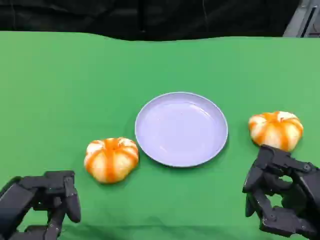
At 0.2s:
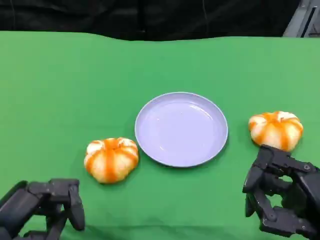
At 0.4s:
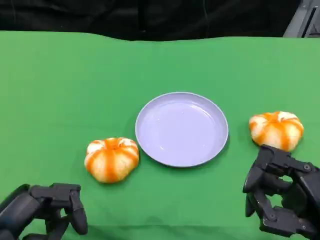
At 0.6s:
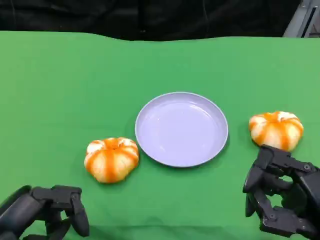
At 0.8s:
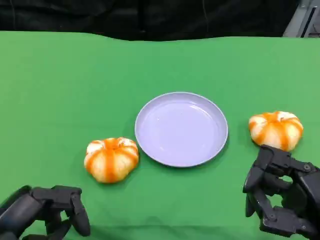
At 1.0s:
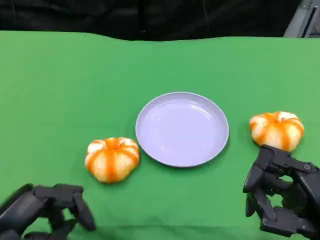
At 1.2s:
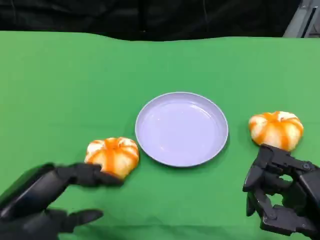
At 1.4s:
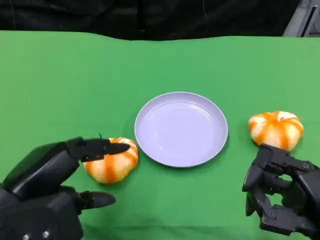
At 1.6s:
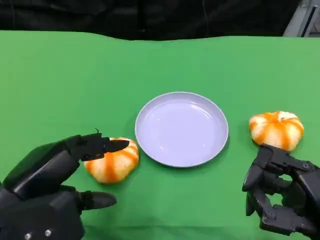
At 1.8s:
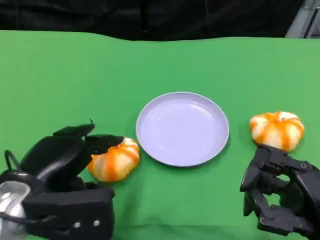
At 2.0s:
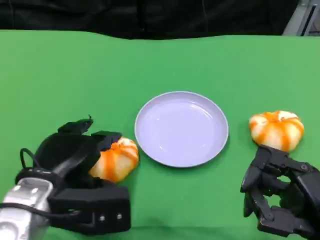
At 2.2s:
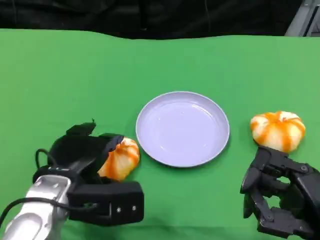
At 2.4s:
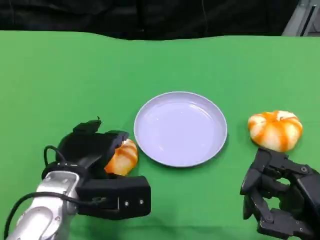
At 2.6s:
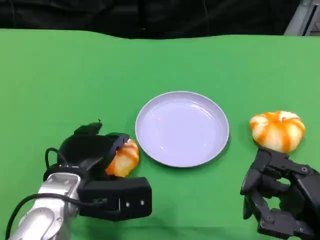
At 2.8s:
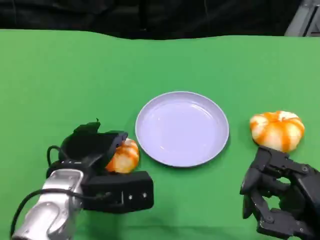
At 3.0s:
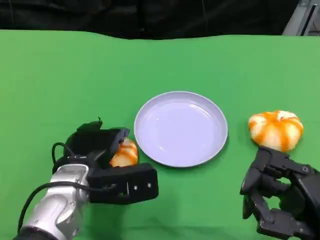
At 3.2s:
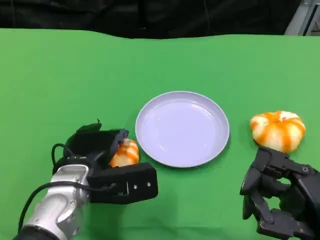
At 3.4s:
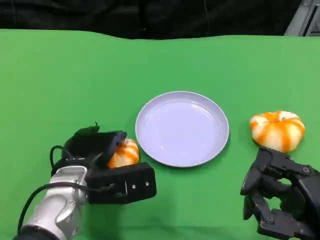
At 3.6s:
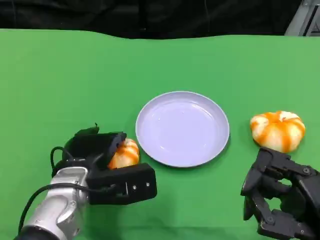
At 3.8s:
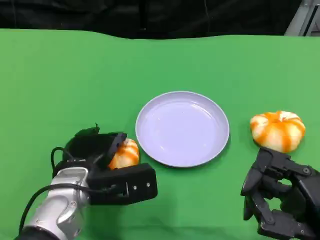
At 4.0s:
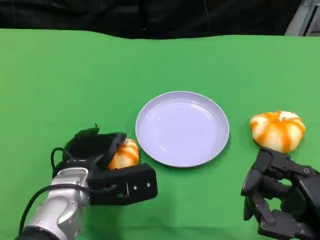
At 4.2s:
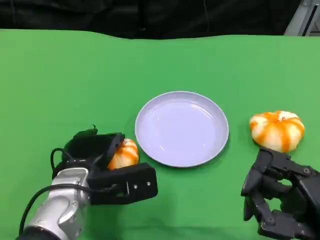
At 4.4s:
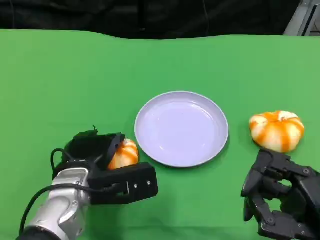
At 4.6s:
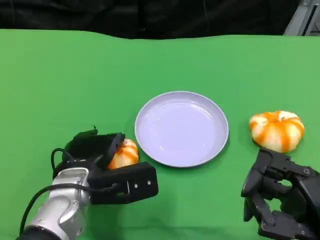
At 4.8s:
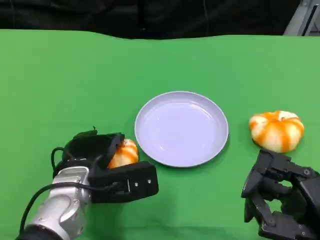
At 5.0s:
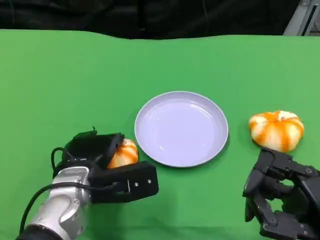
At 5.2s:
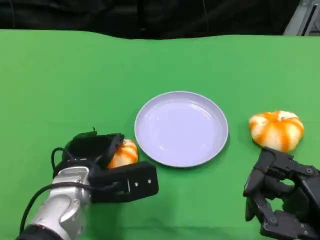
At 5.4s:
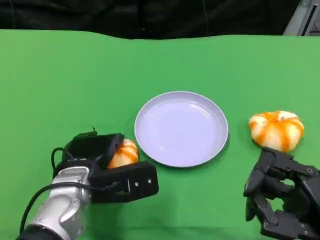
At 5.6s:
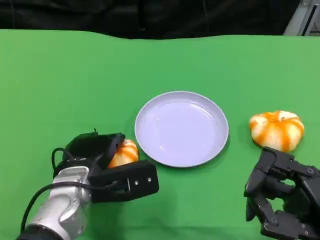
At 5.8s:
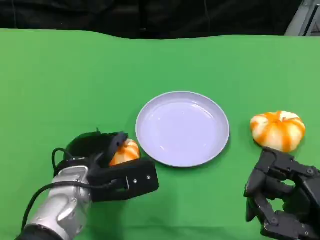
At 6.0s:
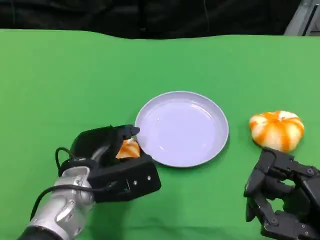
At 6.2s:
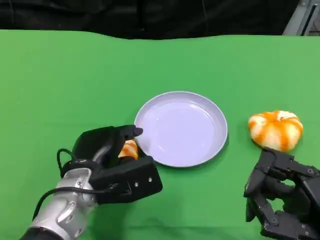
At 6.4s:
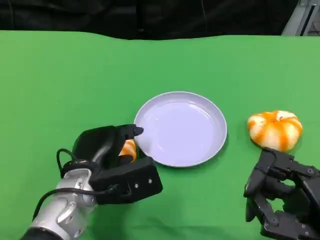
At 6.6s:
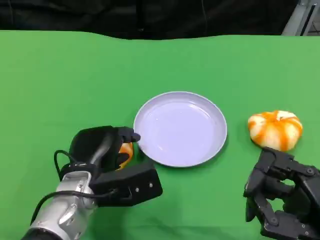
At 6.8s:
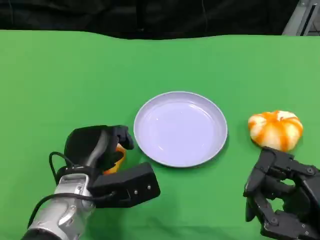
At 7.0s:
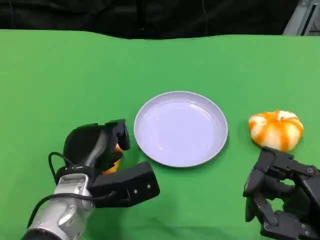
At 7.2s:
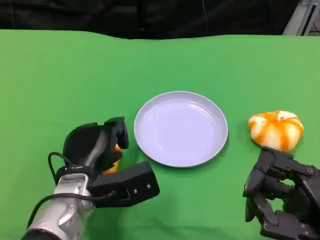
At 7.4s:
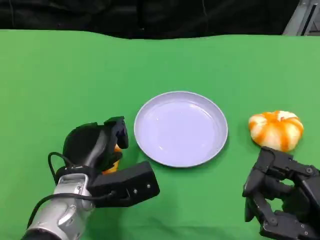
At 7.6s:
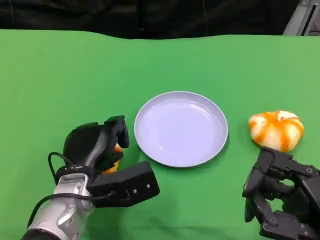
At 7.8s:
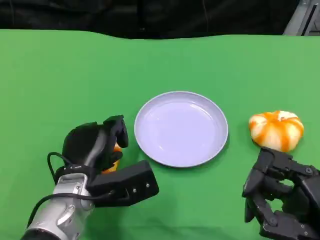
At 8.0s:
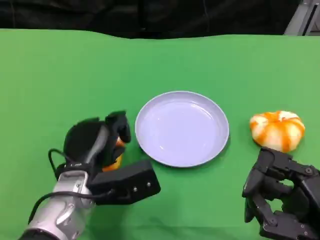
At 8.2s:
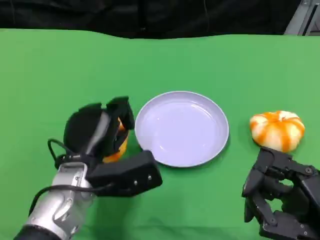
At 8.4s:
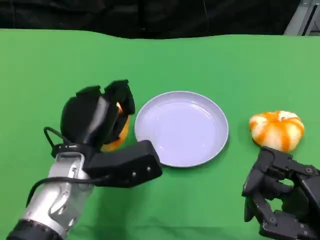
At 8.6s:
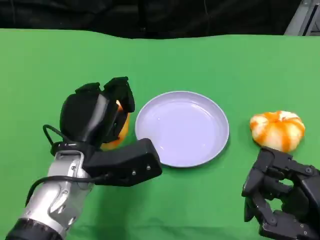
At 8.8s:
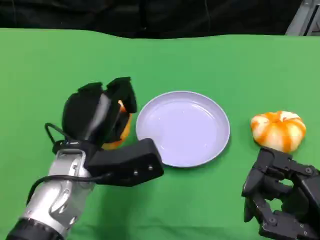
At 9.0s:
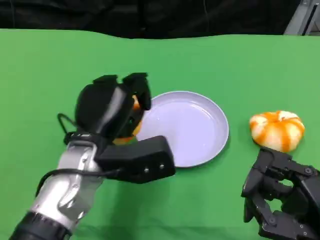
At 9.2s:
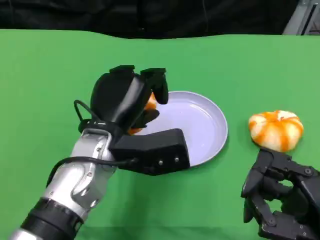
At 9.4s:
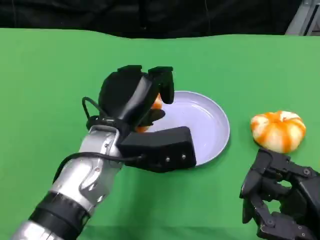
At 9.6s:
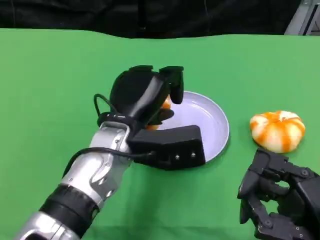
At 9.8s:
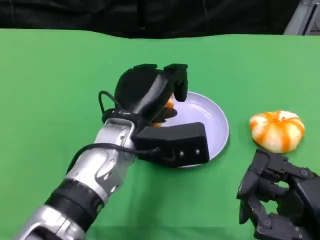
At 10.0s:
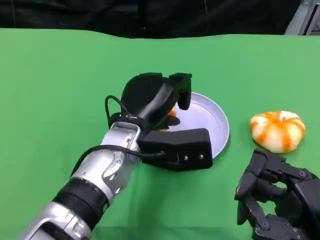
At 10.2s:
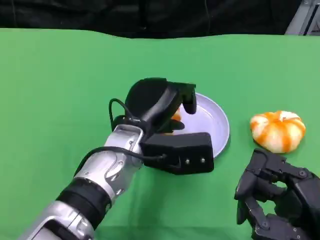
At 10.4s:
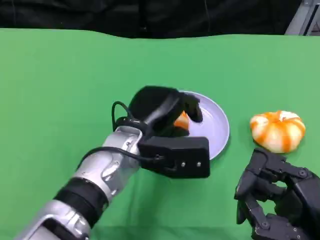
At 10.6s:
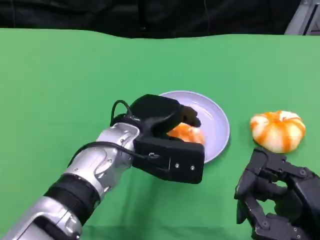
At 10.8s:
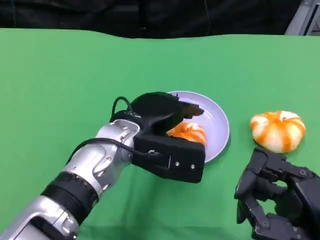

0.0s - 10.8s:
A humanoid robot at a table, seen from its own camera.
Task of the whole recording: Grasp the bread from the table and place it into the plate.
0.0s - 1.6s: The left hand shifts by approximately 5 cm.
1.6s - 3.0s: The left hand shifts about 15 cm forward, to the right and downward.
3.0s - 4.6s: Neither hand changes place.
4.6s - 6.2s: The hands stay close to where they were, moving slightly.
6.2s - 7.8s: The hands stay close to where they were, moving slightly.
7.8s - 9.2s: The left hand is displaced upward by approximately 10 cm.

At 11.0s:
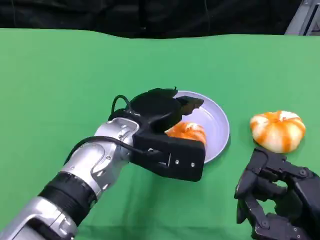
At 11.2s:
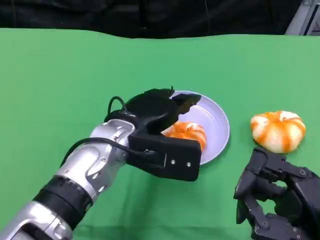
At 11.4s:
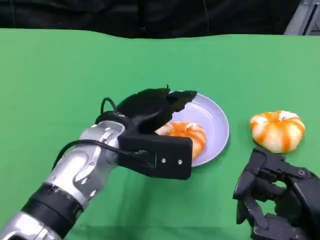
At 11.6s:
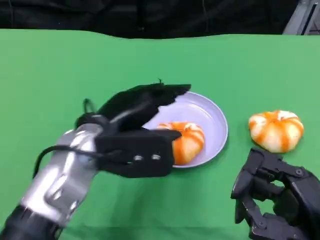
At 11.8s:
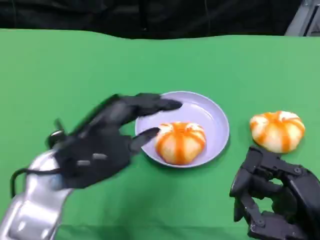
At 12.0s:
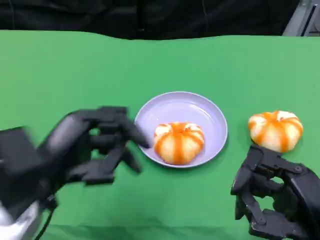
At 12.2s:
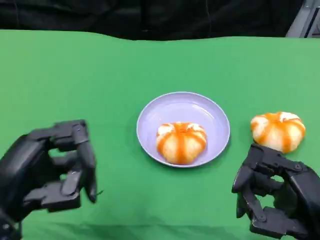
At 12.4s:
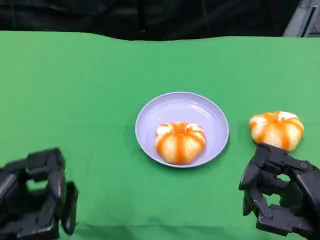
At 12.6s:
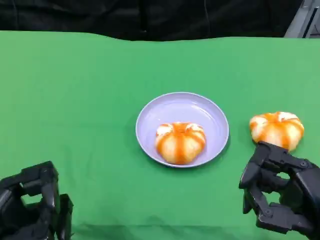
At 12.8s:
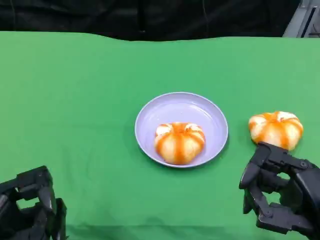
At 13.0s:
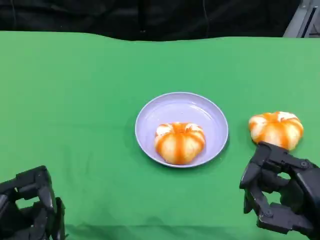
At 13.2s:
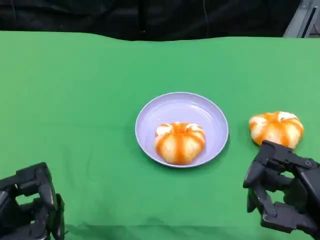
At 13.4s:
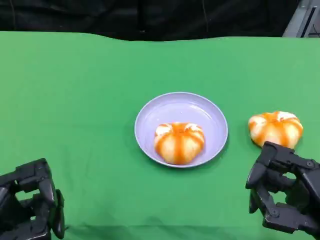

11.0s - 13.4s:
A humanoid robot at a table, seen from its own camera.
Task of the whole recording: Grasp the bread from the table and place it into the plate.
11.0s - 12.2s: The left hand shifts roughly 20 cm to the left and backward.
12.2s - 13.4s: The left hand ends up approximately 5 cm from where it was.

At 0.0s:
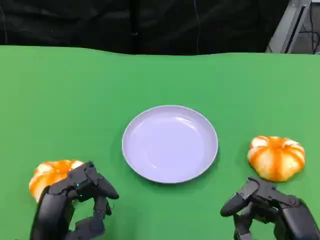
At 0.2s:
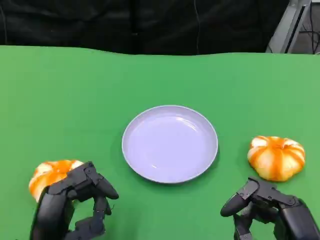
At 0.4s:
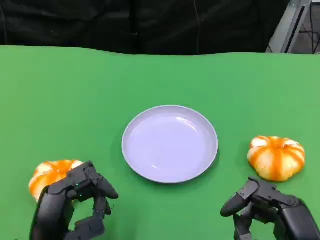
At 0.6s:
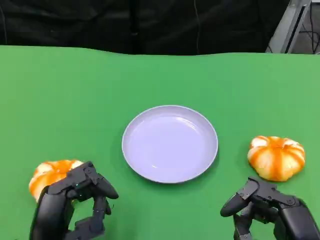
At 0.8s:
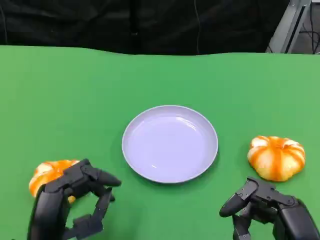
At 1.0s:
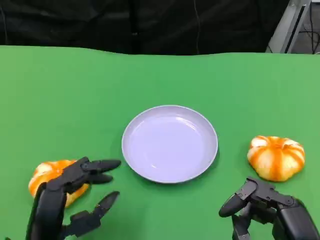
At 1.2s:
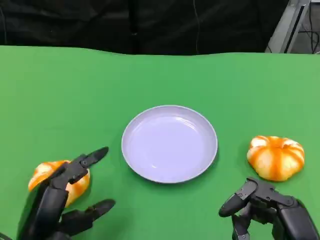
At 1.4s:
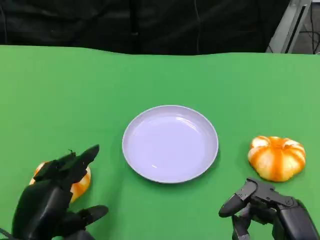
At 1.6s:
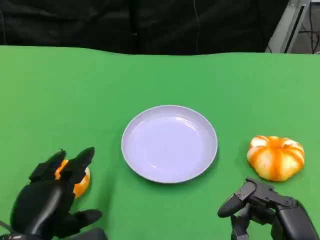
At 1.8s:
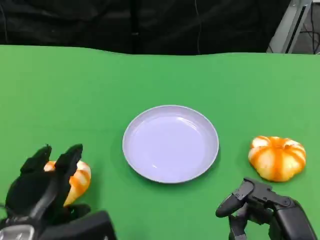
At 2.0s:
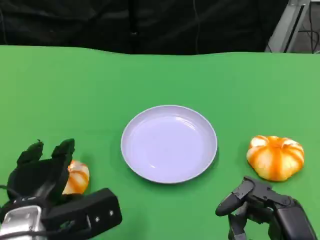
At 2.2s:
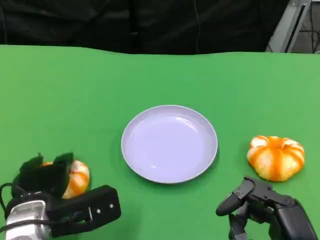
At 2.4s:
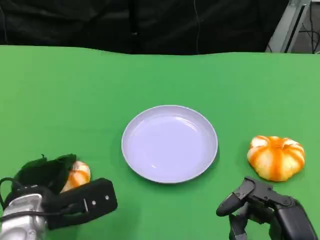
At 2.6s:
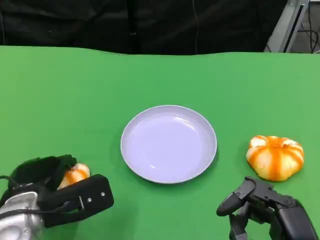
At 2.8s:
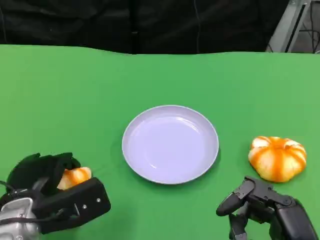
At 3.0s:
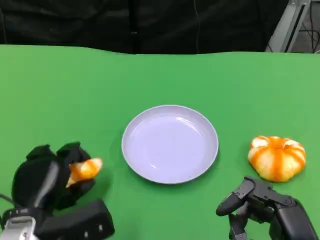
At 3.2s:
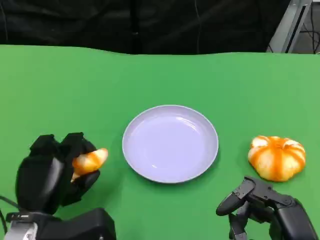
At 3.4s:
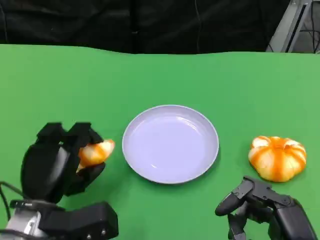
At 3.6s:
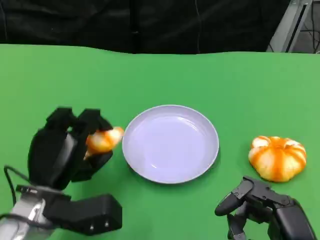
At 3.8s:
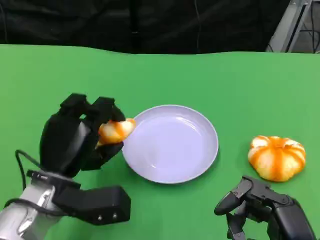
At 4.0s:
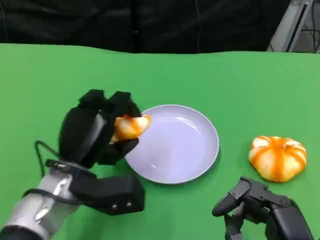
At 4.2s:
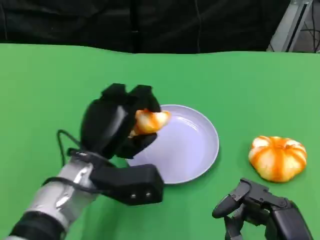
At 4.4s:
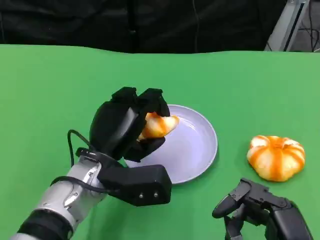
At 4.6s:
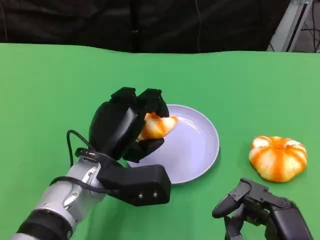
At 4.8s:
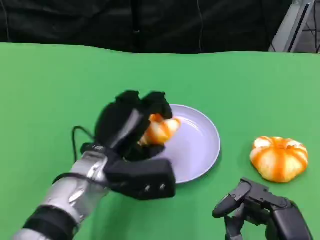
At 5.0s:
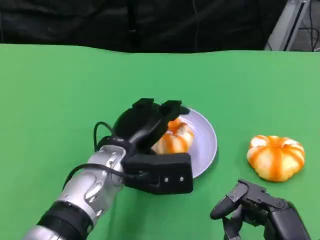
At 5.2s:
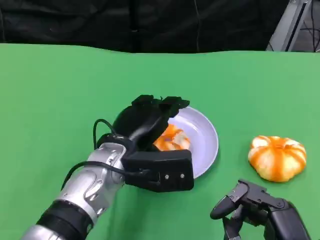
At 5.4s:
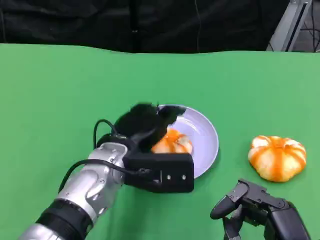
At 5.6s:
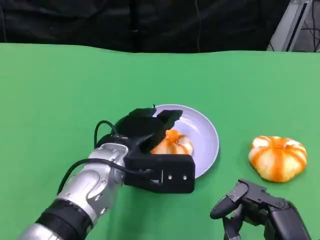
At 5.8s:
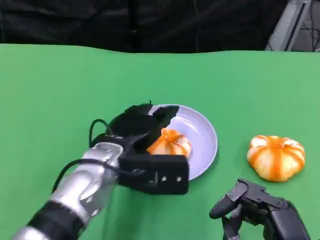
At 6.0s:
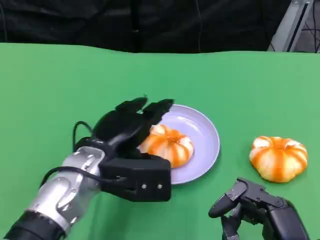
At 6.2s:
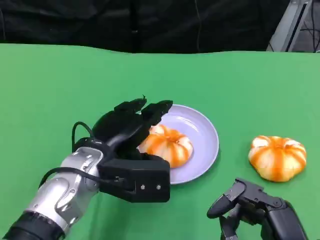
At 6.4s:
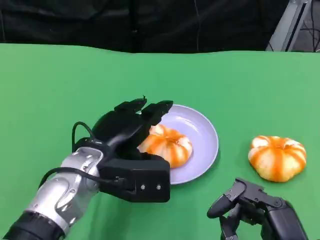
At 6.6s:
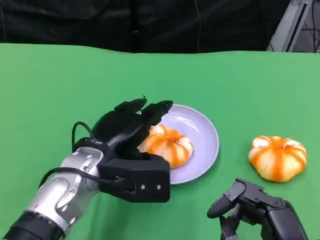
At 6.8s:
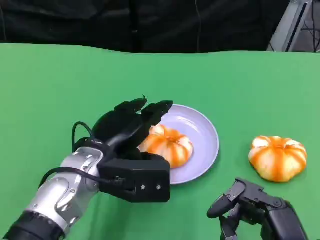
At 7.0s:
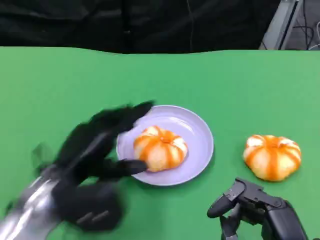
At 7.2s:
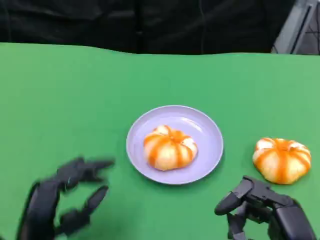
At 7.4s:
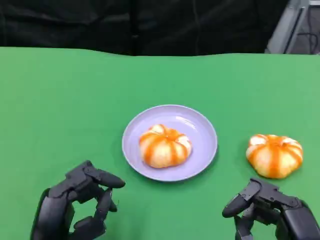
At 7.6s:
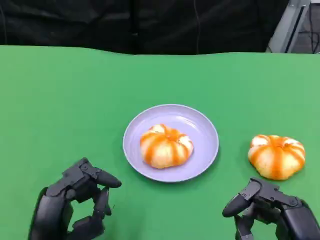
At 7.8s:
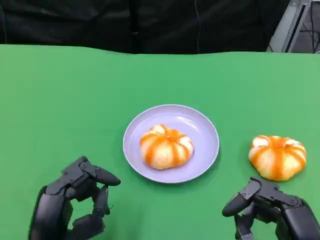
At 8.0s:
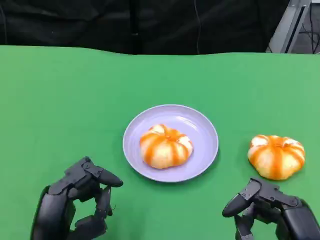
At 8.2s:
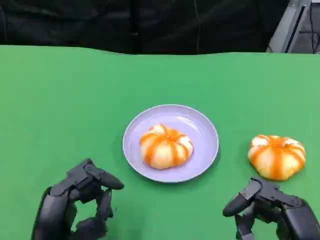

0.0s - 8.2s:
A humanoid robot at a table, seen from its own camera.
Task of the whole recording: Grasp the bread from the table and place it into the plate.
1.6s - 3.2s: The left hand shifts by approximately 5 cm.
3.2s - 5.0s: The left hand shifts some 15 cm to the right, forward and upward.
6.6s - 8.2s: The left hand moves backward and to the left, some 15 cm.

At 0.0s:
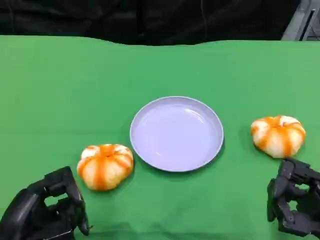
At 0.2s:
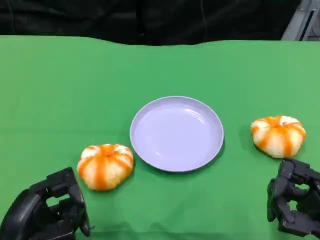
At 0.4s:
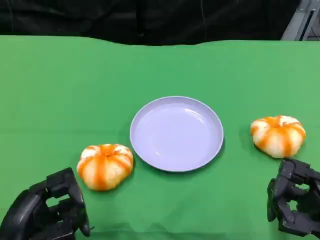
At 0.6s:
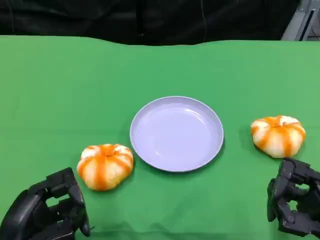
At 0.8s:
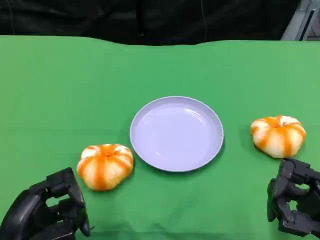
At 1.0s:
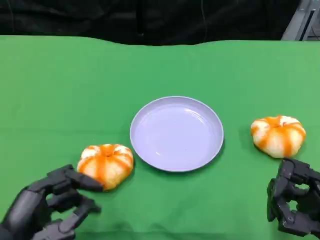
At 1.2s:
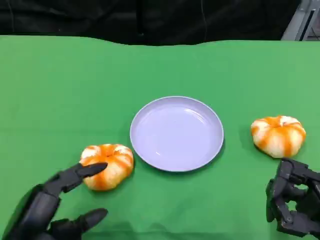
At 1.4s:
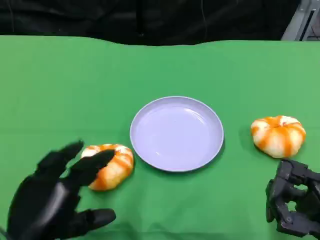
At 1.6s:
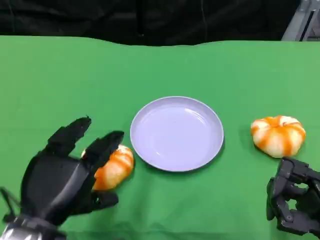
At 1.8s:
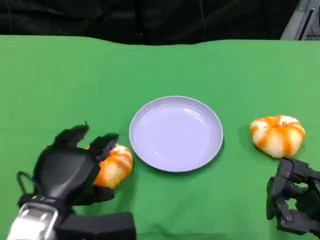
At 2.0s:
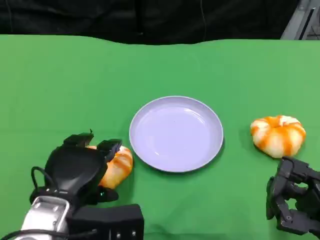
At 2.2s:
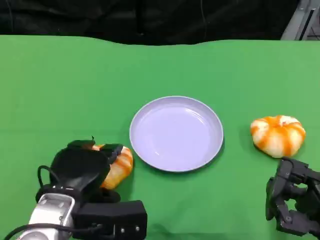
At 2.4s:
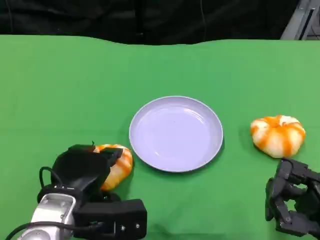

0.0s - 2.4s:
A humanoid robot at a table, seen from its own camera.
Task of the whole recording: Grasp the bread from the table and place it into the plate.
1.2s - 2.4s: The left hand travels forward and to the right by some 10 cm.
